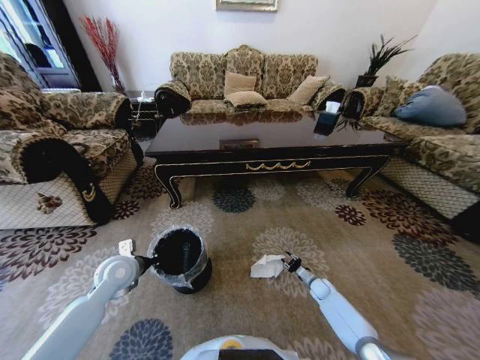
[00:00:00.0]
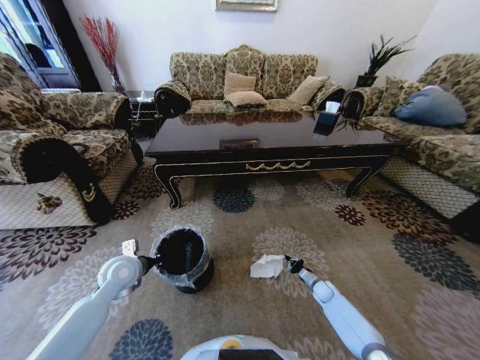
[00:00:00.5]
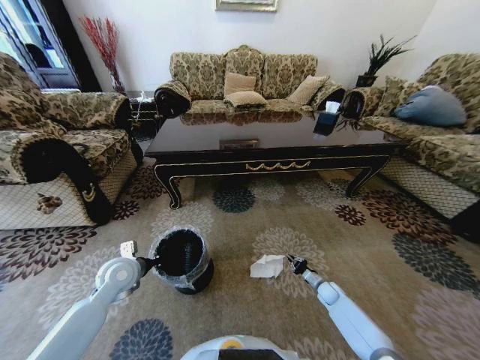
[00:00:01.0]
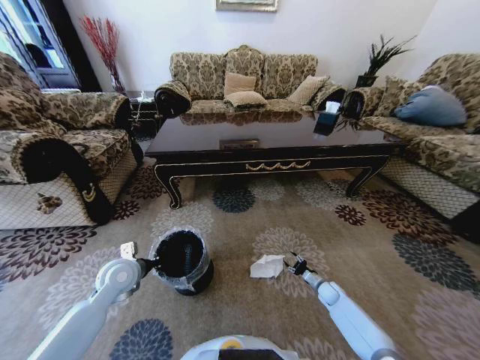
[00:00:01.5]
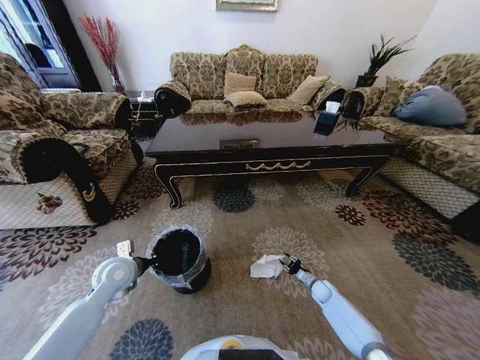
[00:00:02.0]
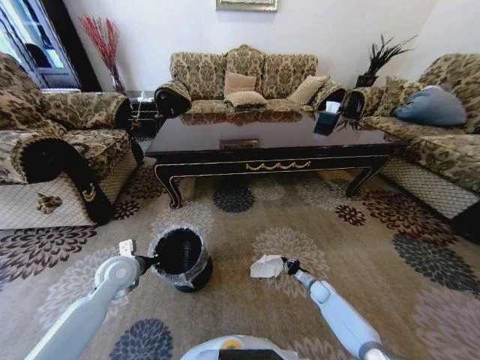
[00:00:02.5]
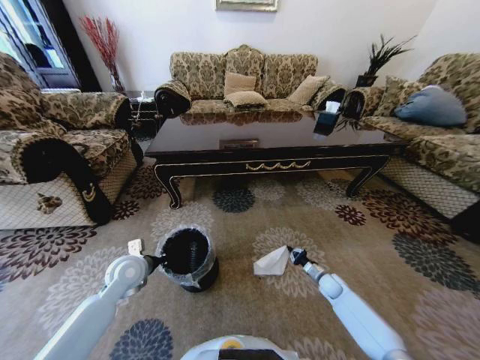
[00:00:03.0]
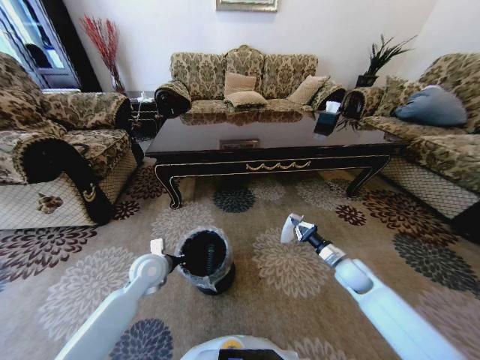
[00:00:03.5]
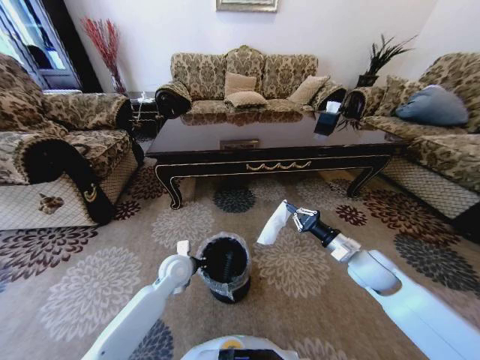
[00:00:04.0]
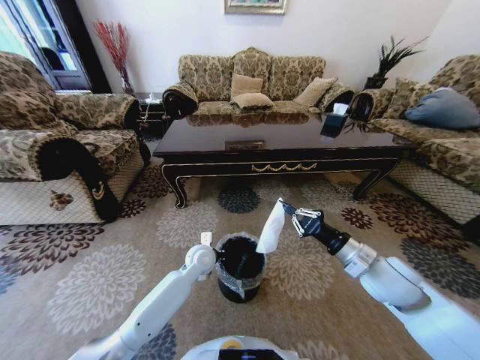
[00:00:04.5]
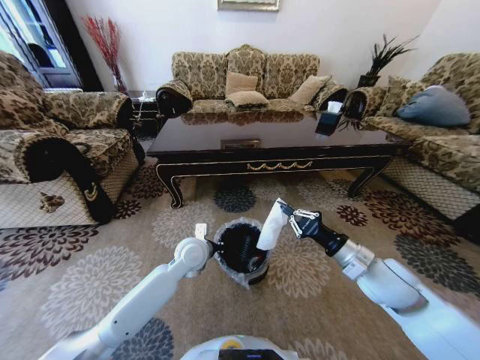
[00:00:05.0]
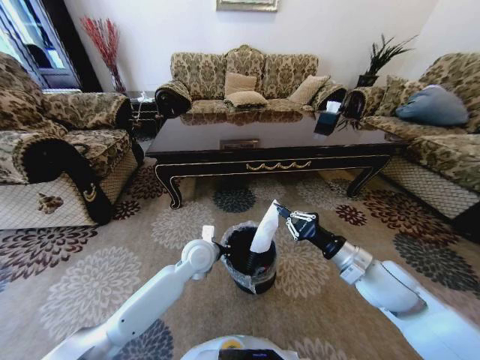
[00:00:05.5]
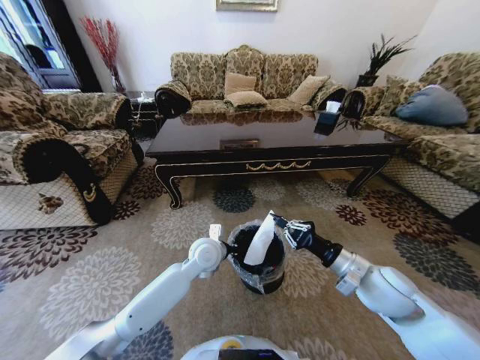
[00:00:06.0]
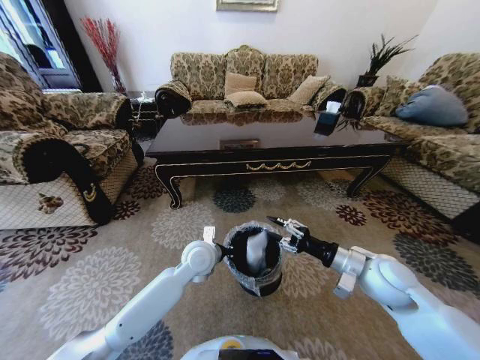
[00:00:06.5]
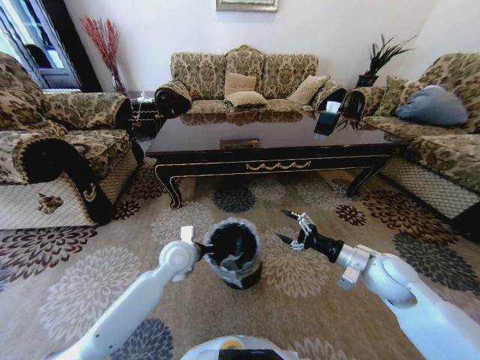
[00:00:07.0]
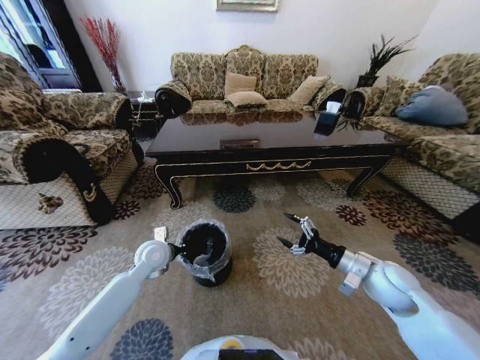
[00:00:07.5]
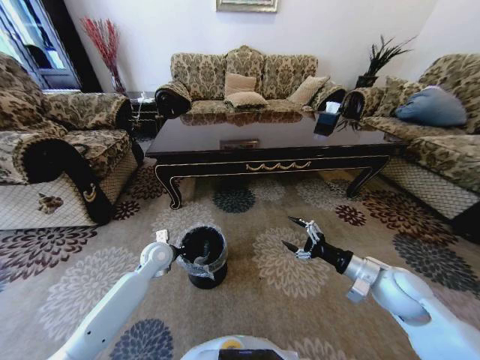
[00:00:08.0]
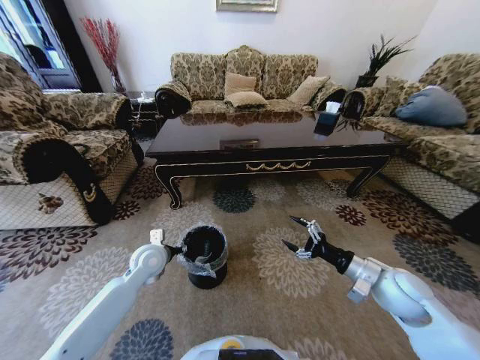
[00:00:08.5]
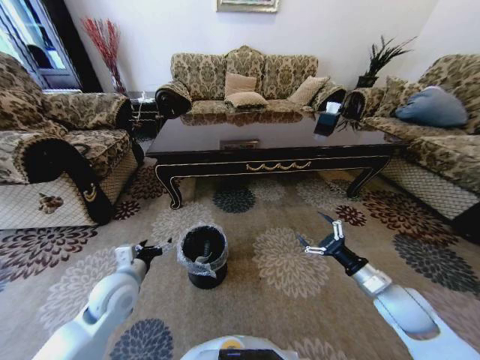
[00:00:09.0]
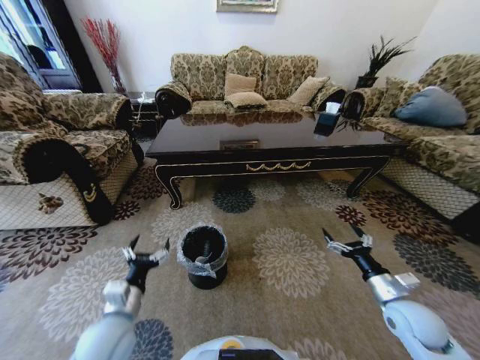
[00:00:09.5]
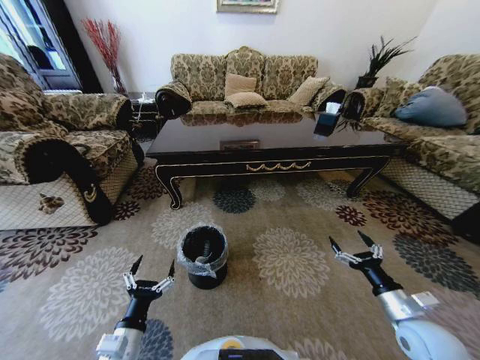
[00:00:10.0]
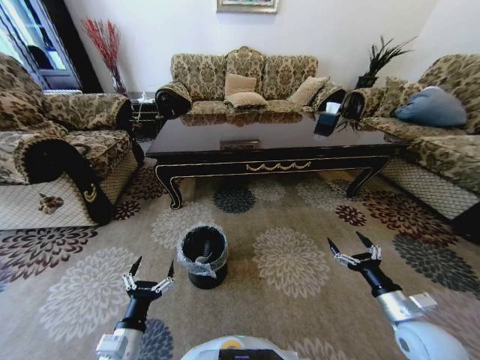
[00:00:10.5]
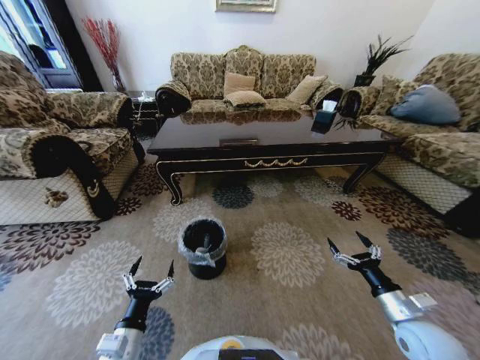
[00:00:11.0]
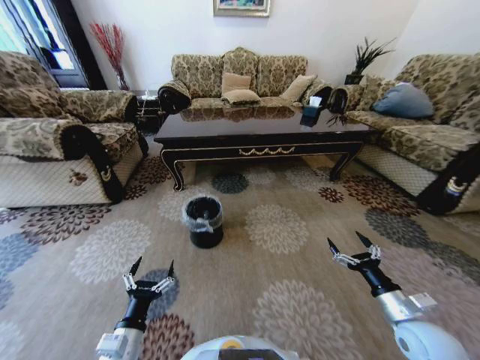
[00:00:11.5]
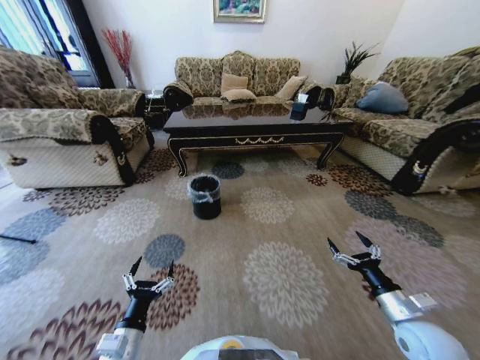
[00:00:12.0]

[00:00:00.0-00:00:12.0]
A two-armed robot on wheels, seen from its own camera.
Task of the whole recording: Move to the front of the table and pick up the trash from the floor, then place it into the trash bin.
00:00:00.0 to 00:00:02.0: The right gripper closes, then reopens.
00:00:02.0 to 00:00:04.0: The left gripper shifts about 15 cm to the right. The right gripper goes about 30 cm upward, and closes.
00:00:04.0 to 00:00:06.0: The left gripper travels to the right and upward by some 10 cm. Meanwhile the right gripper travels backward by roughly 5 cm.
00:00:06.0 to 00:00:08.0: The right gripper heads to the right, covering about 5 cm, and opens its fingers. Meanwhile the left gripper moves to the left, some 15 cm.
00:00:08.0 to 00:00:10.0: The left gripper travels backward by some 30 cm, and opens. The right gripper moves backward, downward and to the right, some 10 cm.

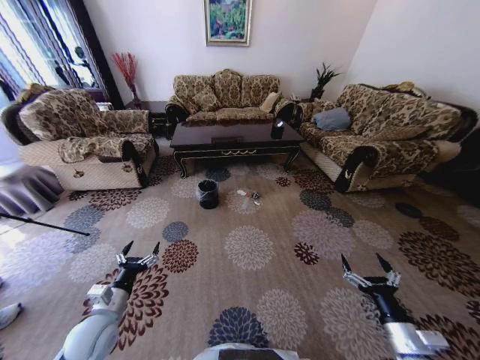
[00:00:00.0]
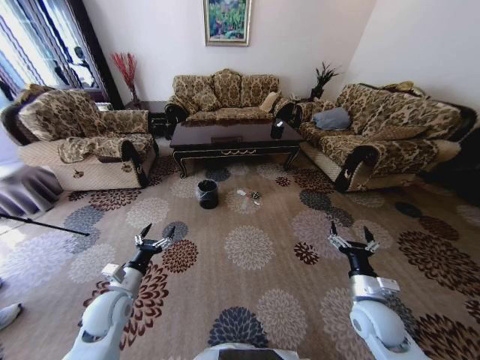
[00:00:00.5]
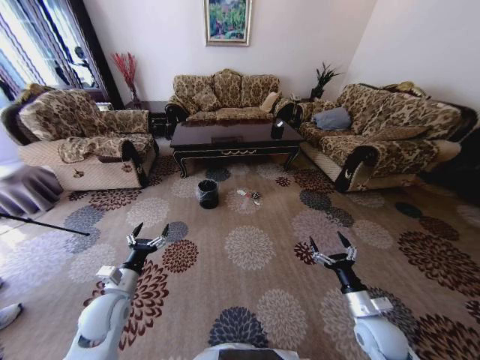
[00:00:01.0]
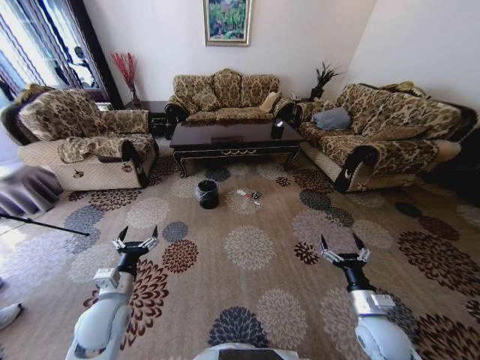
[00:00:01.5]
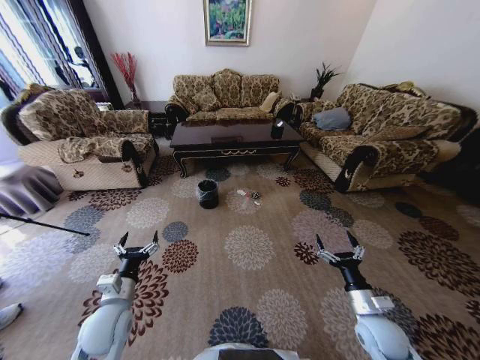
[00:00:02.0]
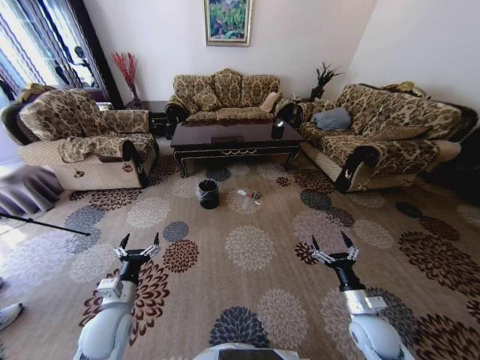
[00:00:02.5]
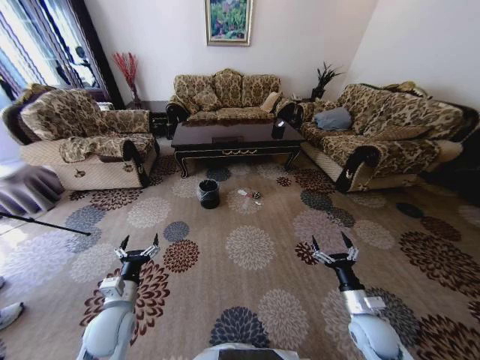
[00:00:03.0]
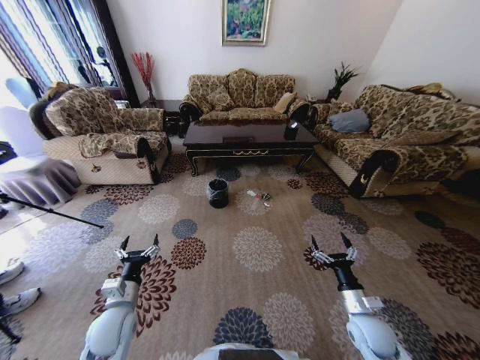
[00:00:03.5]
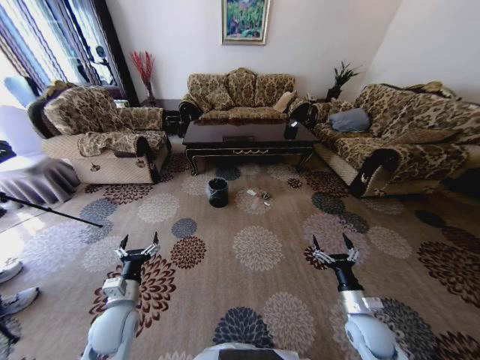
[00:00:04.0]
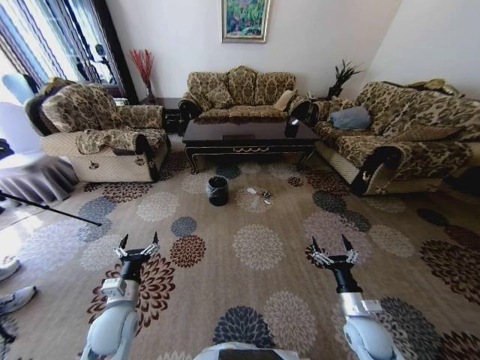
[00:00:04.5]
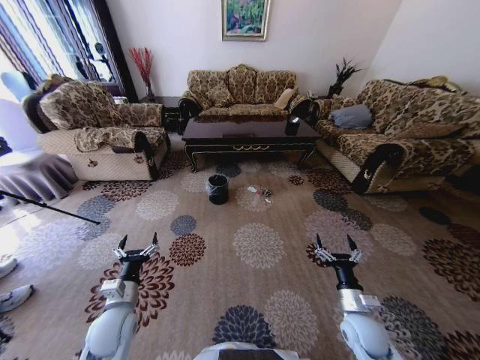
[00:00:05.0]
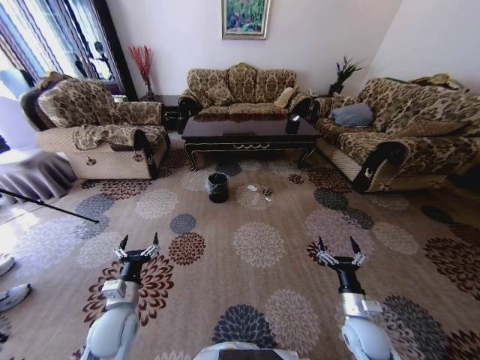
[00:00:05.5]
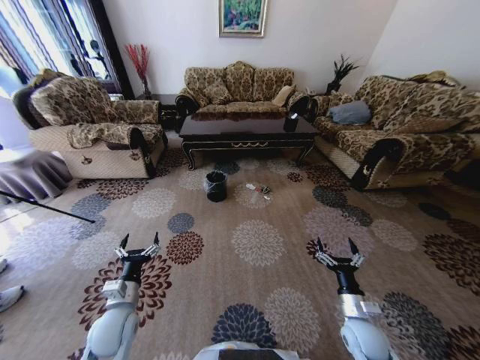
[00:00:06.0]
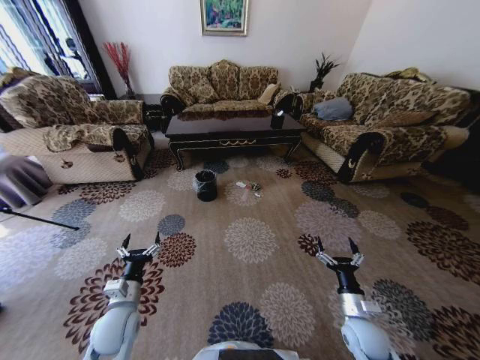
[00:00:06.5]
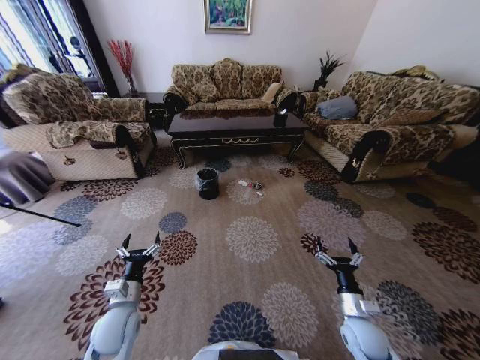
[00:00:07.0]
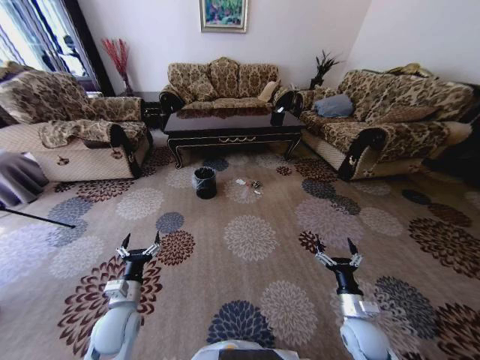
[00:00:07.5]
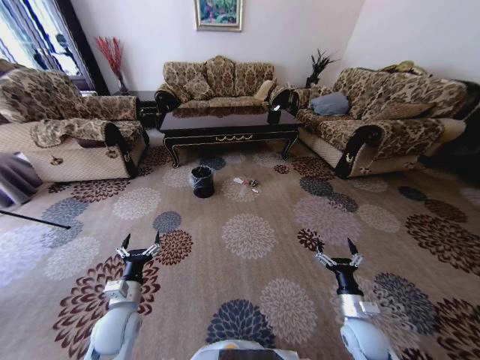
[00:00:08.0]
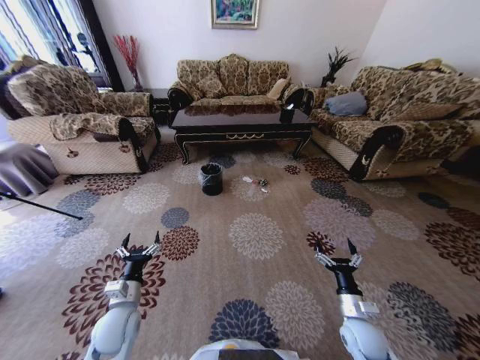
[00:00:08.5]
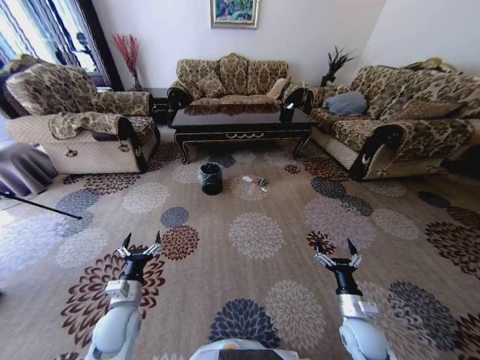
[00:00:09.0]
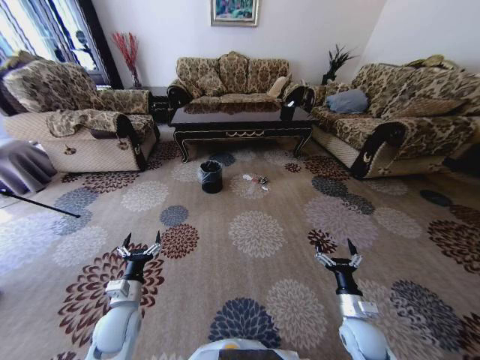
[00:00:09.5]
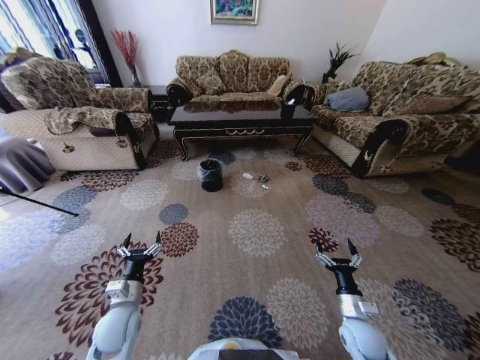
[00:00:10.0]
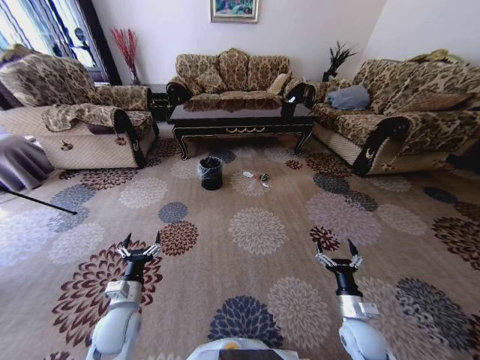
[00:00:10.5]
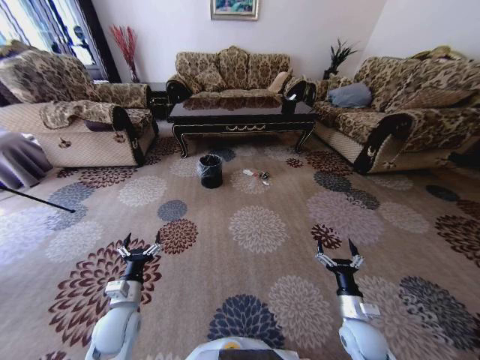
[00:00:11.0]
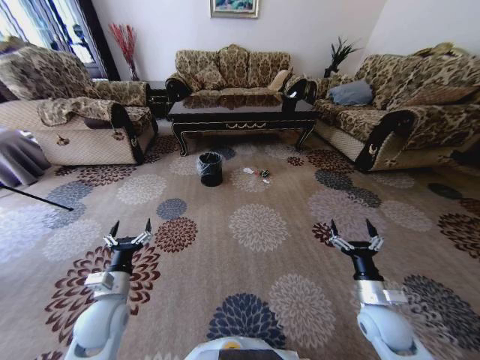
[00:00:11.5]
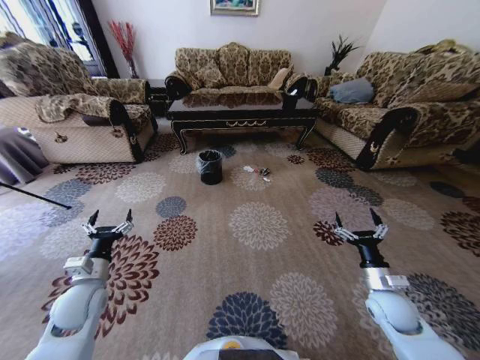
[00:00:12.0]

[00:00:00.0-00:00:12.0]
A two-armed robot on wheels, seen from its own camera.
Task of the whole recording: Move to the front of the table and pick up the trash from the floor, then place it into the trash bin.
00:00:10.0 to 00:00:12.0: The right gripper heads upward, to the right and forward, covering some 10 cm. Meanwhile the left gripper travels to the left and upward by roughly 10 cm.

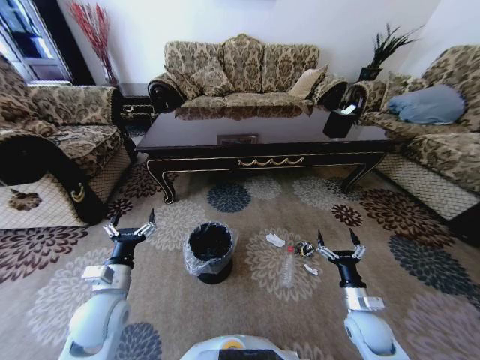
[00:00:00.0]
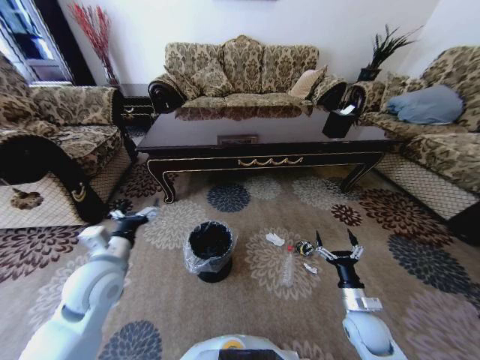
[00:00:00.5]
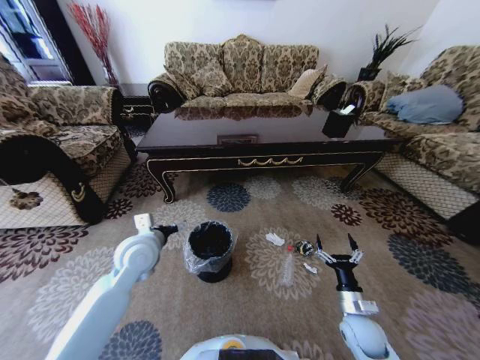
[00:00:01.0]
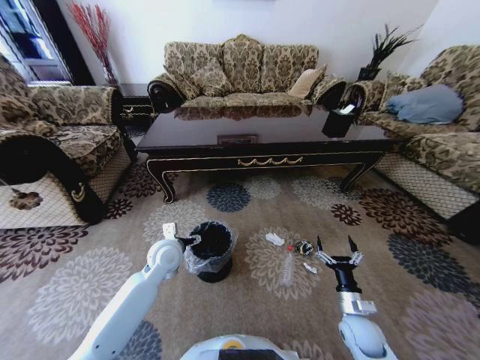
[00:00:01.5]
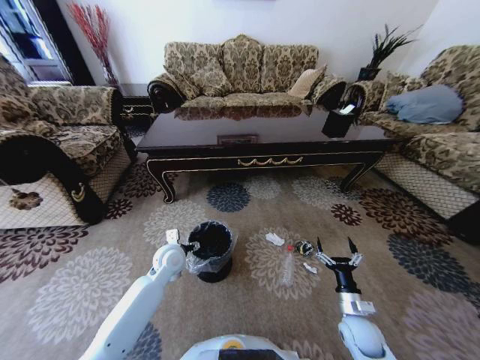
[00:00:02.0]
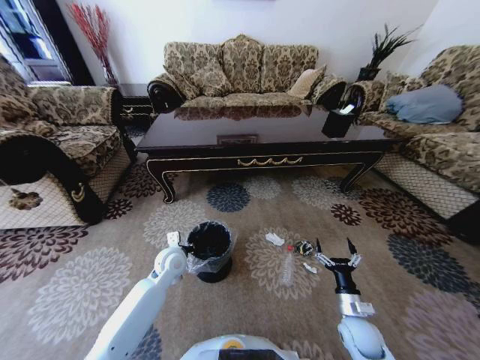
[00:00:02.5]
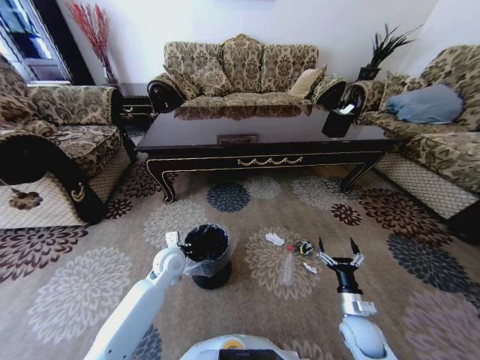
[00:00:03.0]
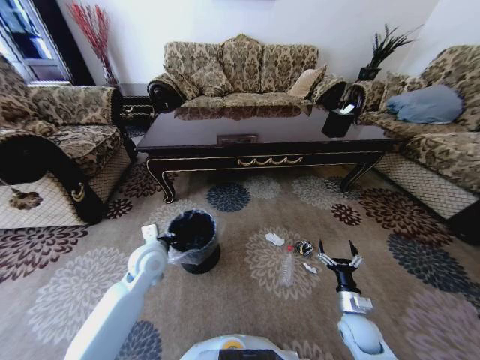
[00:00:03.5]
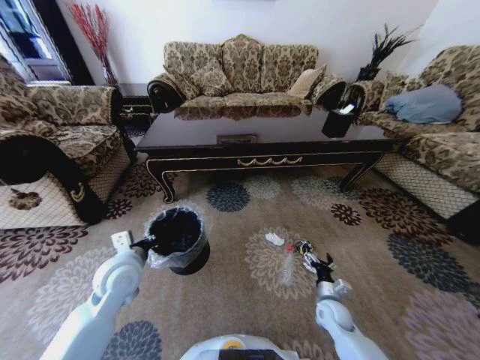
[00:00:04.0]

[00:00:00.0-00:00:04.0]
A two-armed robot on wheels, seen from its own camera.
Task of the whole recording: Move to the front of the table and pick up the trash from the floor, then place it into the trash bin.
00:00:00.0 to 00:00:02.0: The left gripper heads forward and to the right, covering approximately 20 cm.
00:00:02.0 to 00:00:04.0: The right gripper goes approximately 5 cm forward; the left gripper is displaced backward, upward and to the left by approximately 15 cm, and closes its fingers.
